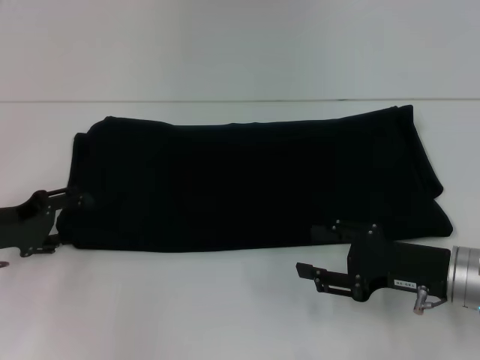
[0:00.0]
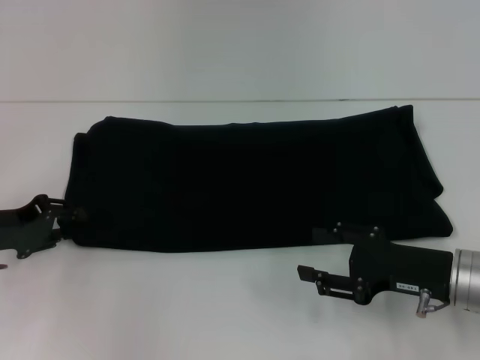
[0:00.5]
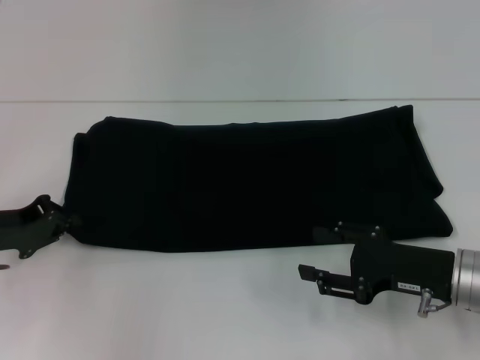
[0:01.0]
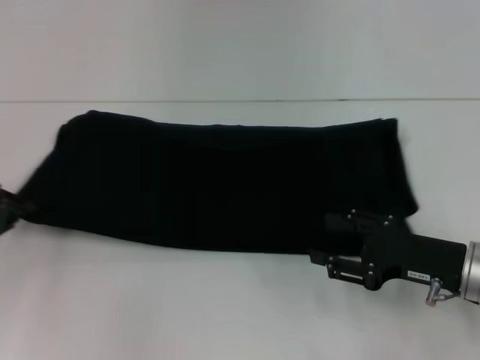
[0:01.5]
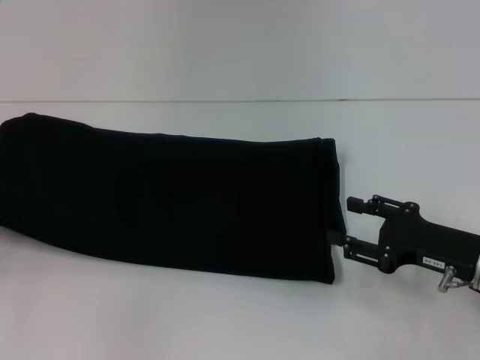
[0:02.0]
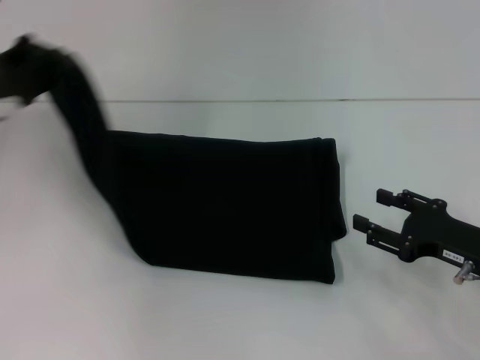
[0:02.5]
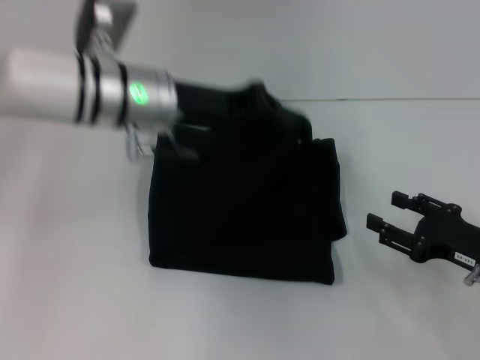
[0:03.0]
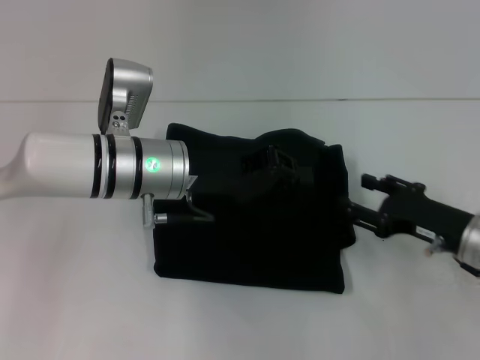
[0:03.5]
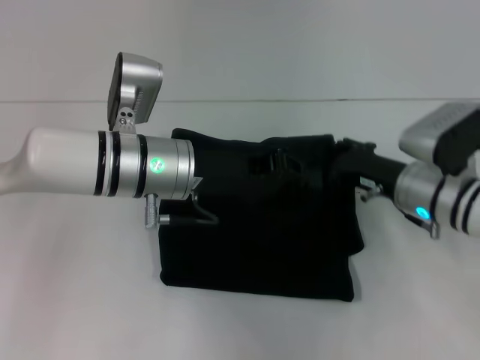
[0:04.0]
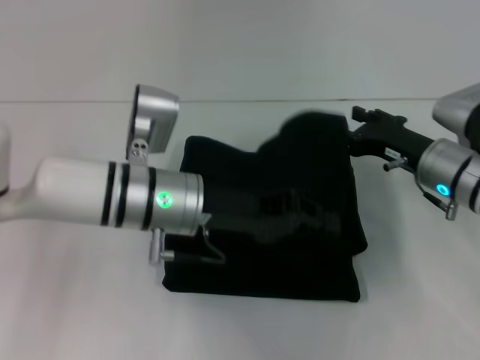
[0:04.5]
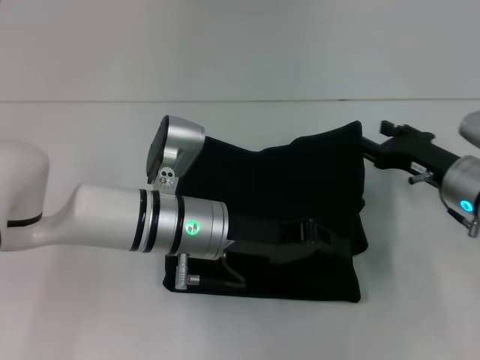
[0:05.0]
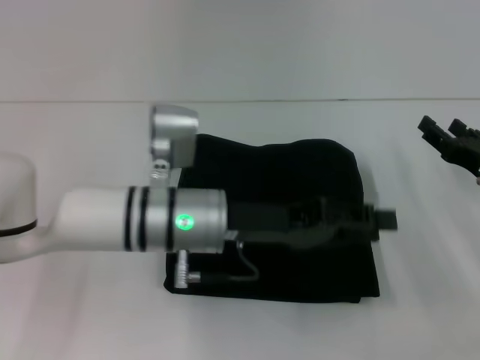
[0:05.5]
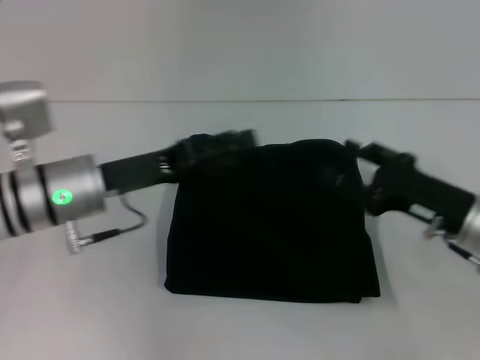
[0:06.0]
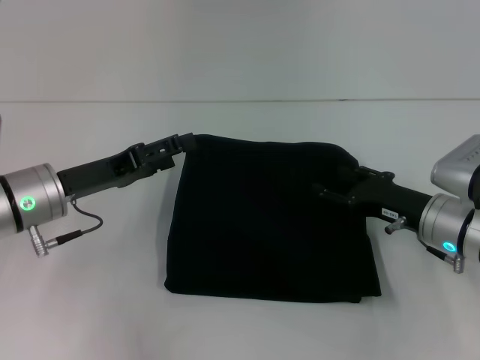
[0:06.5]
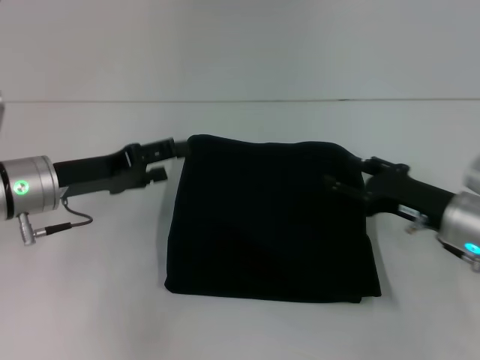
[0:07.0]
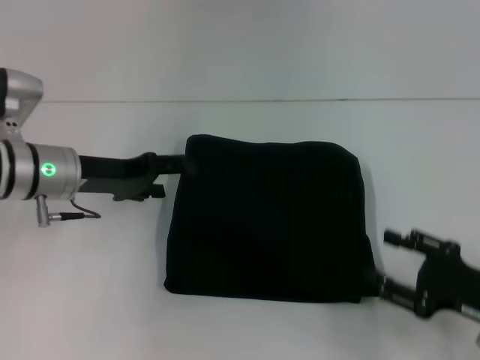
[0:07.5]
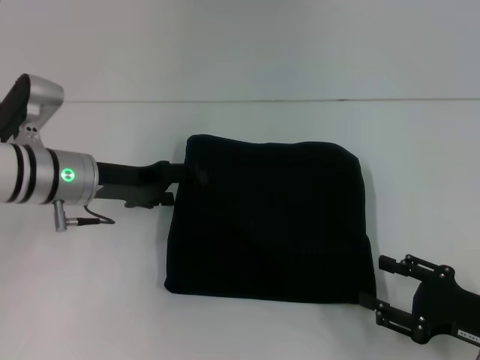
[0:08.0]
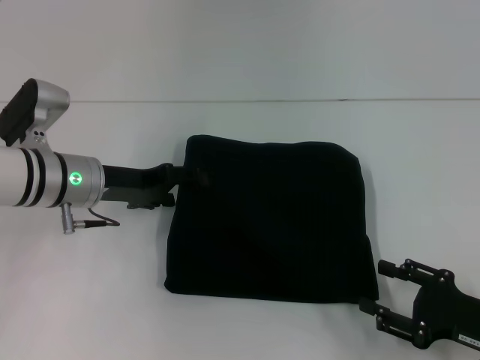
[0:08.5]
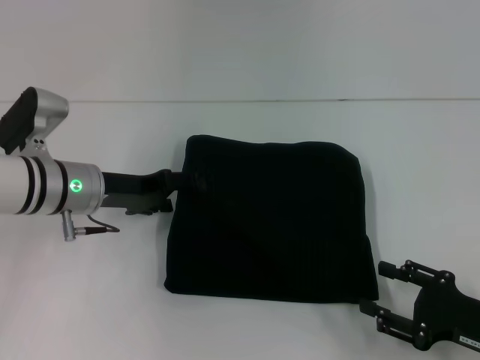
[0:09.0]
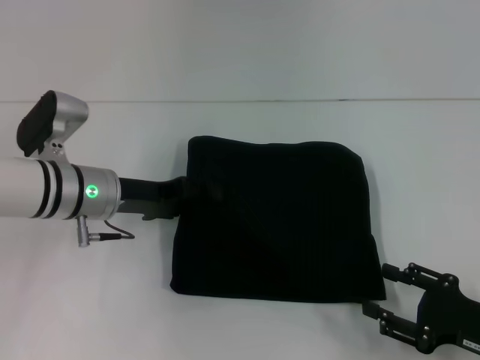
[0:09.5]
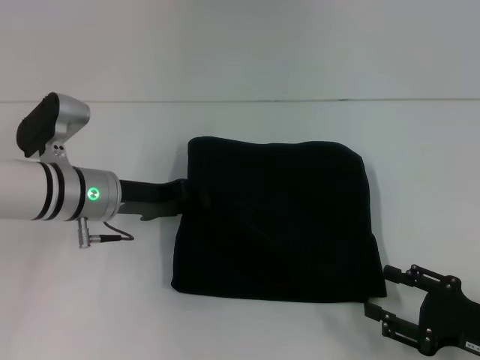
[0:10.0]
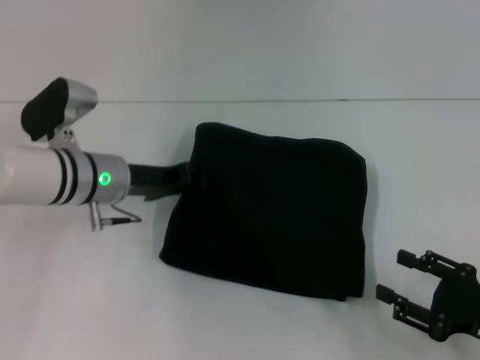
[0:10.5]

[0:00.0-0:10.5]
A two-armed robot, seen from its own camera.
Step, 0:00.0 to 0:05.5: Fold the clothes with your left hand.
0:00.0 to 0:02.0: The left gripper goes roughly 10 cm to the left, and closes up.
0:02.0 to 0:04.0: The right gripper moves forward and to the left, about 10 cm, while the left gripper shifts about 30 cm to the right.
0:04.0 to 0:06.5: The left gripper moves to the left, roughly 10 cm, and opens, while the right gripper goes to the right and returns, some 10 cm each way.
0:06.5 to 0:08.5: The left gripper changes place by some 5 cm; the right gripper is displaced backward and to the right by about 15 cm.
0:08.5 to 0:10.5: The left gripper closes.

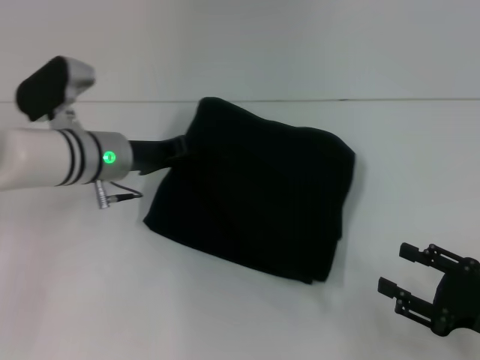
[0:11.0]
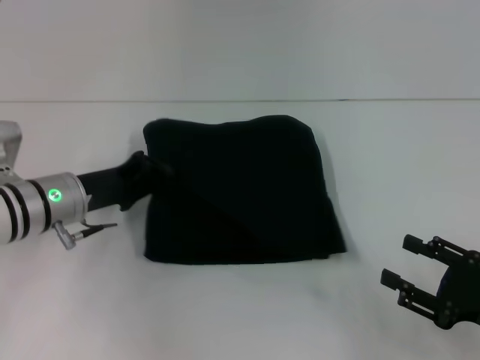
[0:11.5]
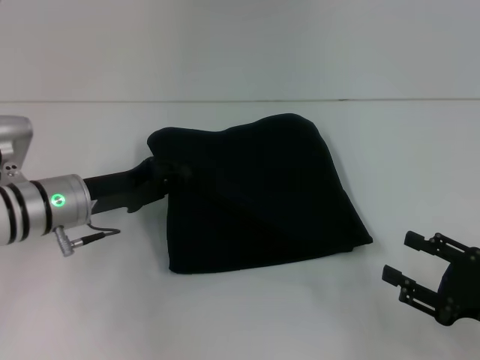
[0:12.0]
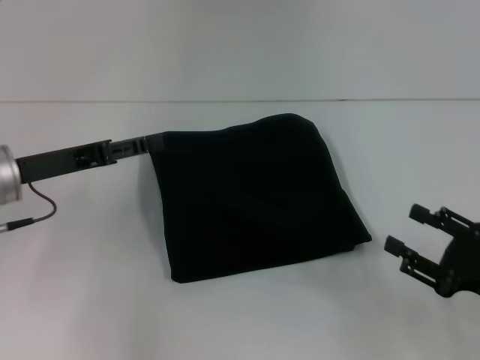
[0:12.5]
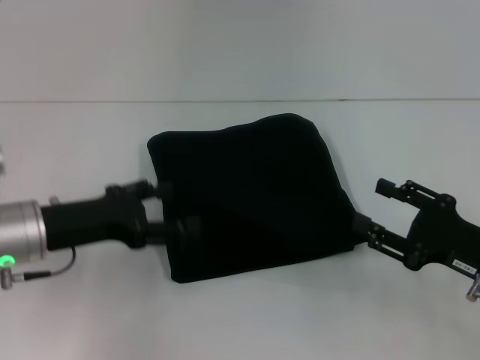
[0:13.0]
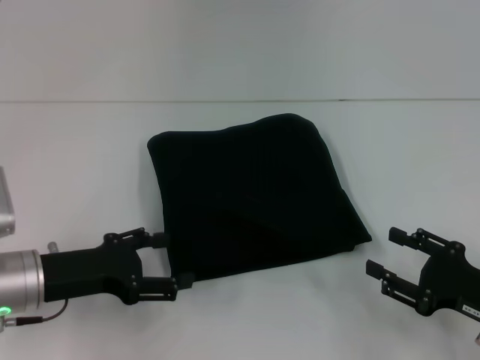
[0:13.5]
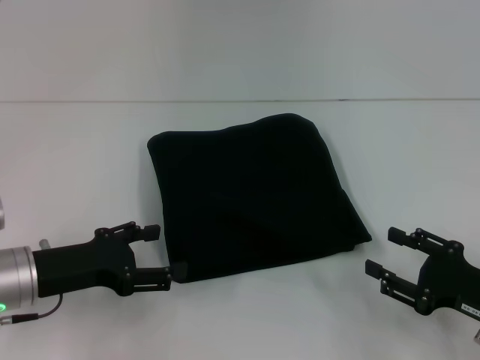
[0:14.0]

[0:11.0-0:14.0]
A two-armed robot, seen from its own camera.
0:11.0 to 0:12.5: The left gripper is displaced to the left and backward by some 10 cm, and opens its fingers.
0:12.5 to 0:14.0: The left gripper goes about 10 cm backward and downward.
